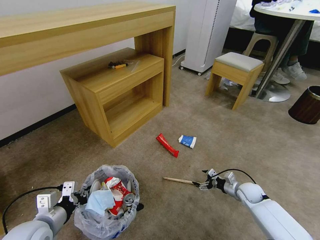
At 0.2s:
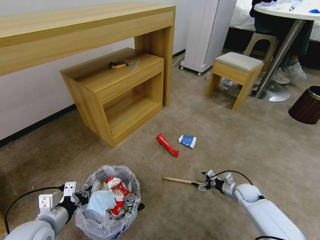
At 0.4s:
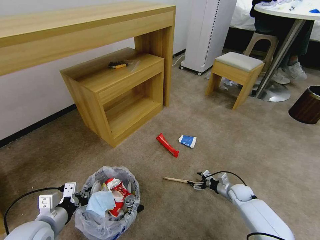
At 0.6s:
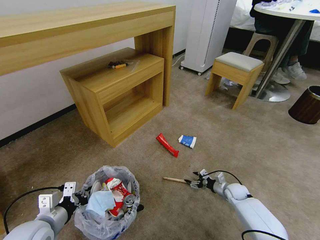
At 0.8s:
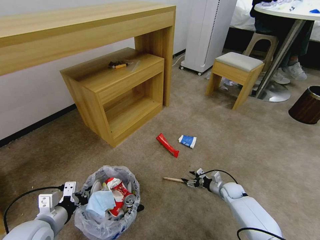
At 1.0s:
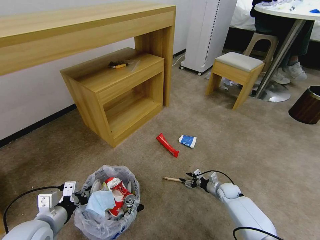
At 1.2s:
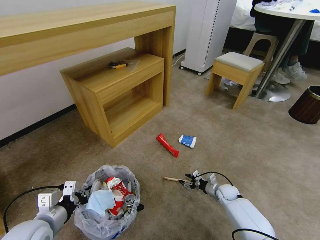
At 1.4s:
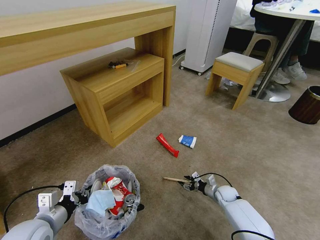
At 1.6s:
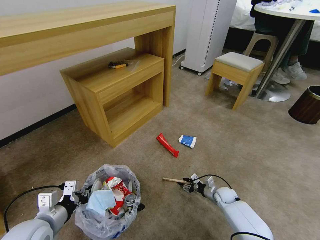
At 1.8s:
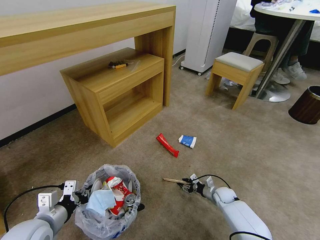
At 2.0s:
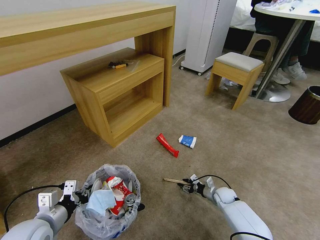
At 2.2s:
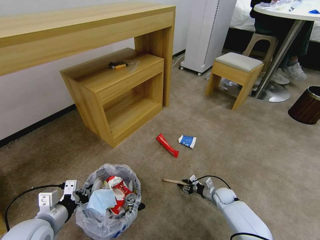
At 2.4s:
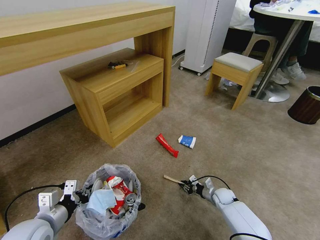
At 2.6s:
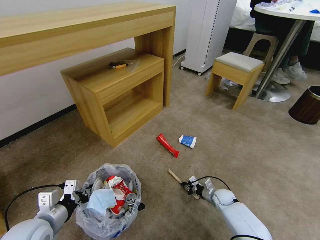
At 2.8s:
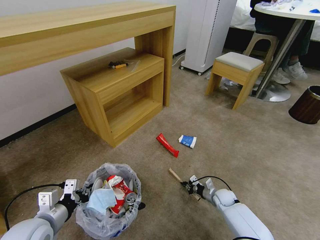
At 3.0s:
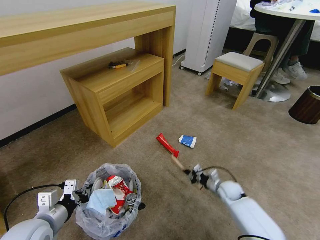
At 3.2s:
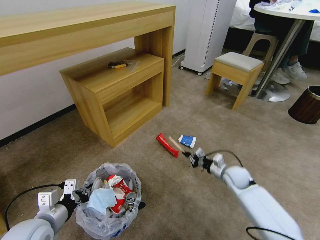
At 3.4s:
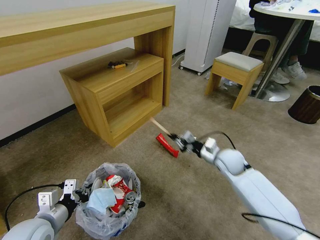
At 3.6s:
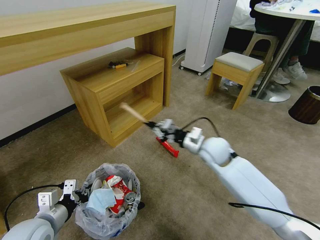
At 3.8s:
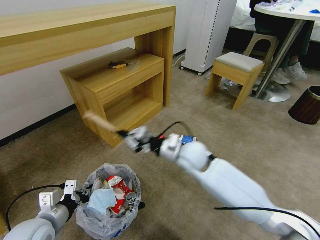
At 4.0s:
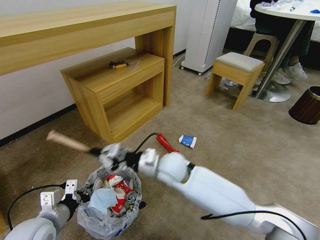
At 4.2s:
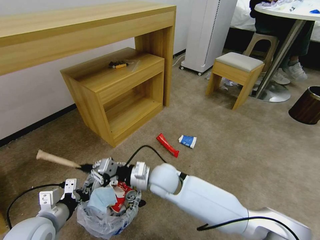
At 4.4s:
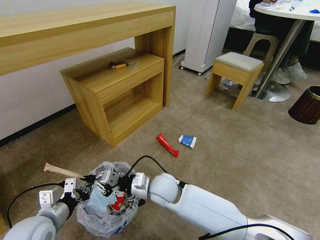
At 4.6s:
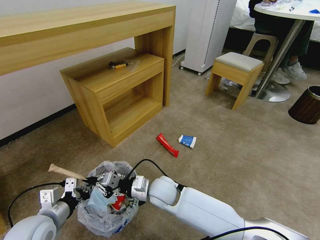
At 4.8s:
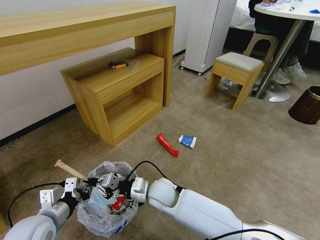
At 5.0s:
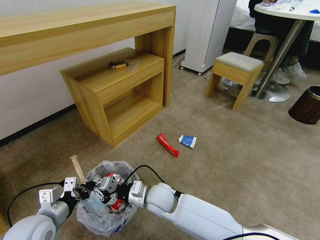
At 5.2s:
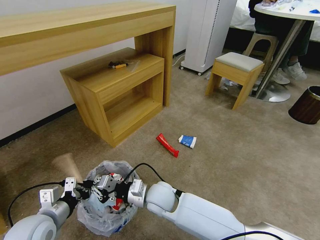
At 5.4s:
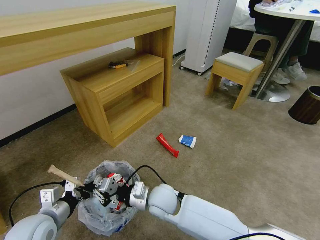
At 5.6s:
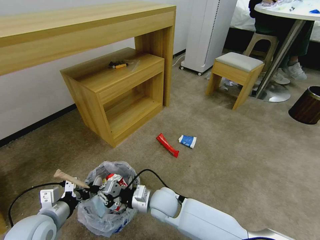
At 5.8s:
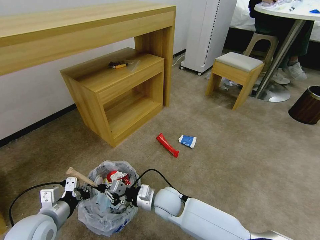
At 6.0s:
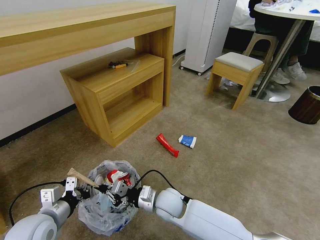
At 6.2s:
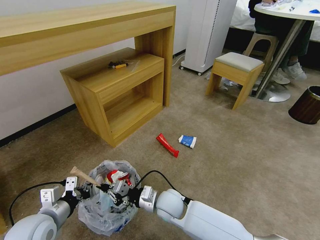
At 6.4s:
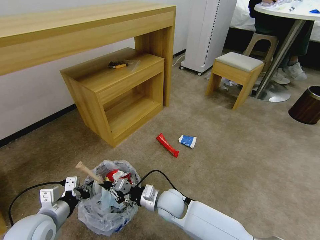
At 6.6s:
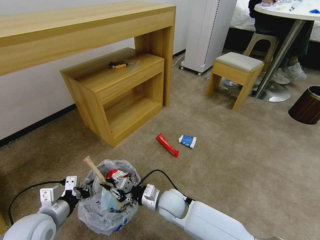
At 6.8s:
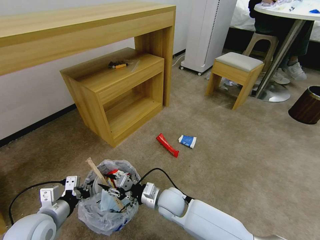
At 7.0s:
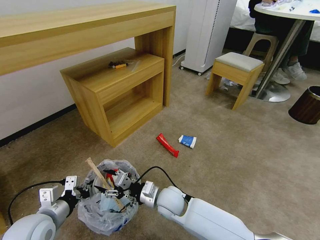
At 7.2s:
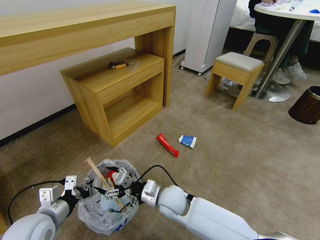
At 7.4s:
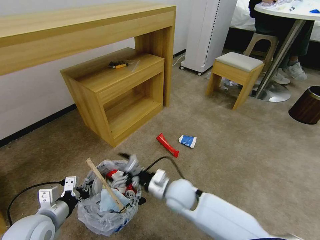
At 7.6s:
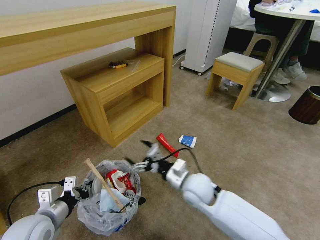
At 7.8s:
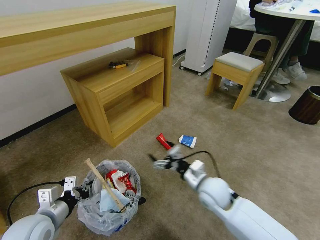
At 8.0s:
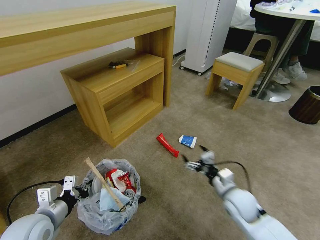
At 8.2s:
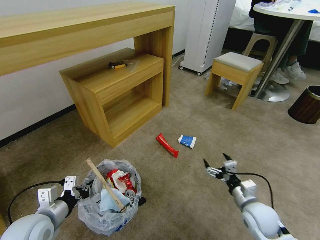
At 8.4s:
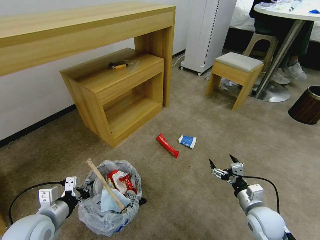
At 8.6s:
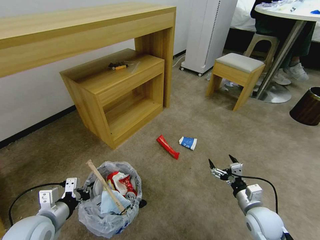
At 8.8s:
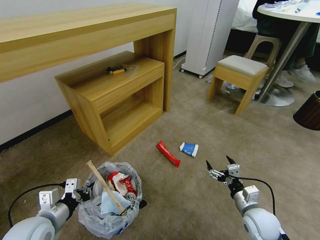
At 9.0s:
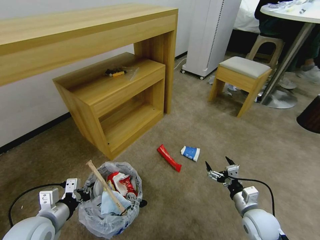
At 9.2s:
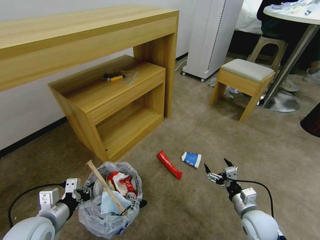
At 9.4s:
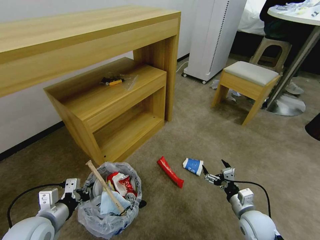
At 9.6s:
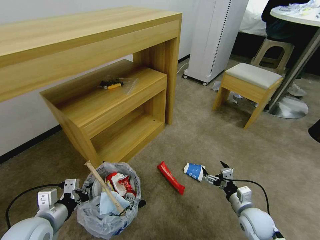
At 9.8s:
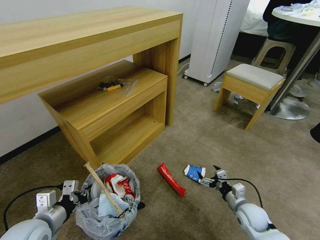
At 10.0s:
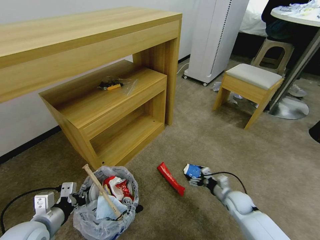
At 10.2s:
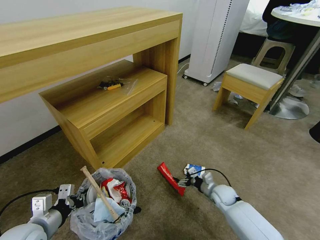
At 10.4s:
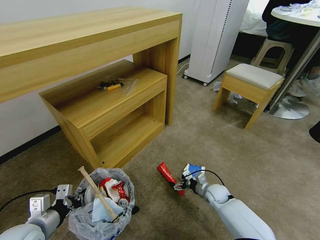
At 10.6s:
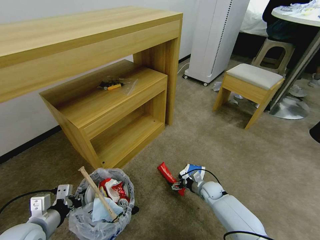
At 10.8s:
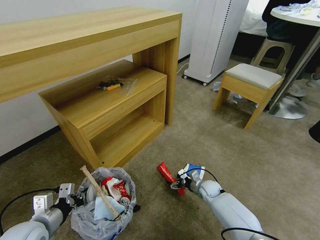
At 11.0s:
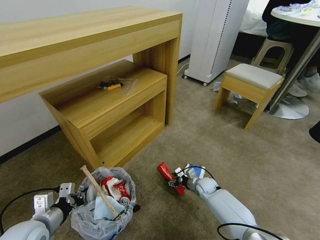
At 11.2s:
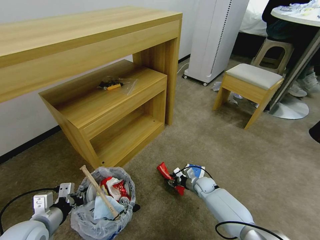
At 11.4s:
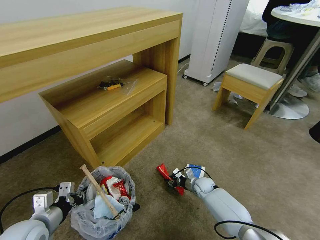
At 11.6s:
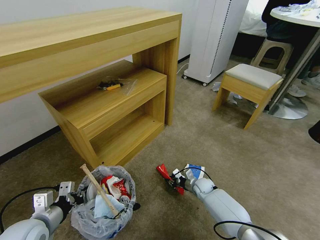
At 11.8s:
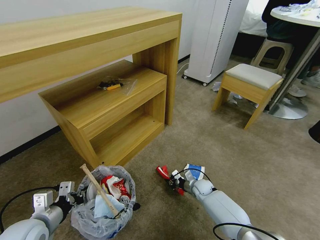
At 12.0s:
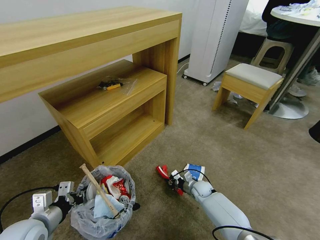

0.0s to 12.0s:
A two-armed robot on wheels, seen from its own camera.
Task of the whole recording: Pick up the trash bin and place the garbage on the floor into it.
0.0s to 1.6s: The right gripper heads downward and to the left, covering approximately 10 cm, and closes up.
1.6s to 3.0s: The right gripper moves upward, roughly 5 cm, and closes.
3.0s to 4.4s: The right gripper shifts about 35 cm to the left and upward.
4.4s to 6.0s: The right gripper goes some 5 cm downward.
6.0s to 7.6s: The right gripper shifts some 10 cm to the right and upward, and opens its fingers.
7.6s to 9.0s: The right gripper moves to the right, backward and downward, roughly 25 cm.
9.0s to 10.4s: The right gripper moves forward, downward and to the left, approximately 20 cm.
10.4s to 12.0s: The right gripper shifts about 5 cm to the left, and closes up.

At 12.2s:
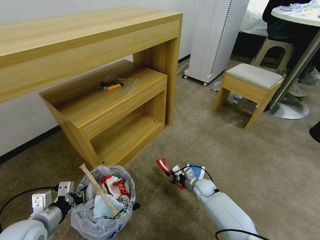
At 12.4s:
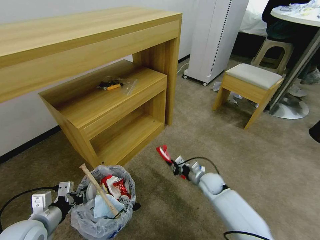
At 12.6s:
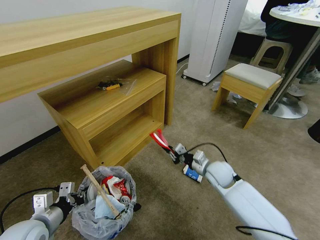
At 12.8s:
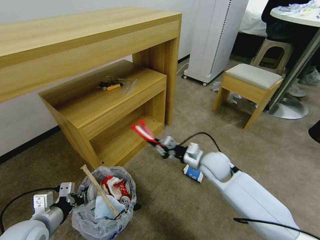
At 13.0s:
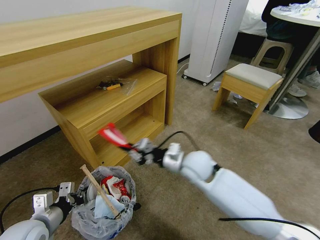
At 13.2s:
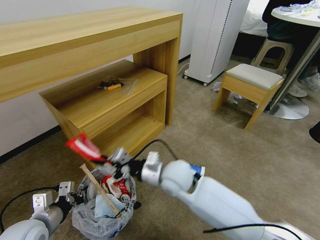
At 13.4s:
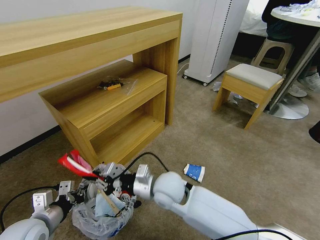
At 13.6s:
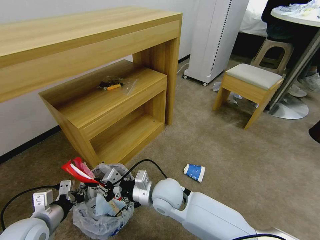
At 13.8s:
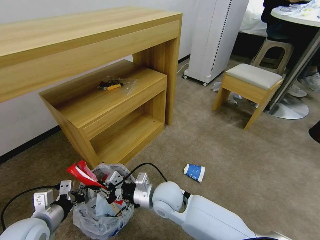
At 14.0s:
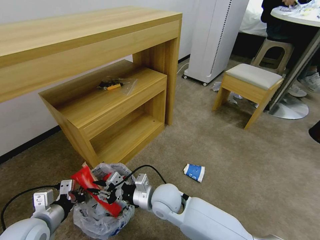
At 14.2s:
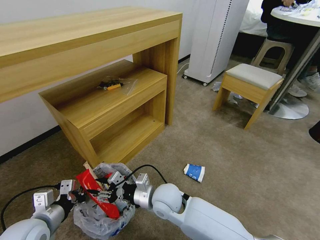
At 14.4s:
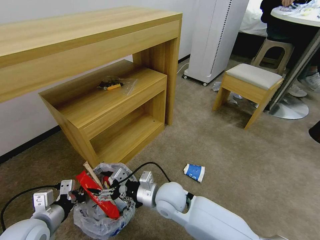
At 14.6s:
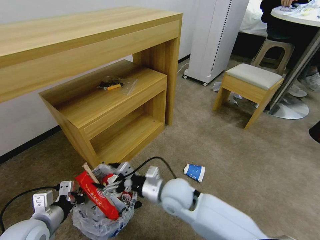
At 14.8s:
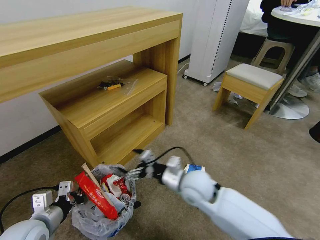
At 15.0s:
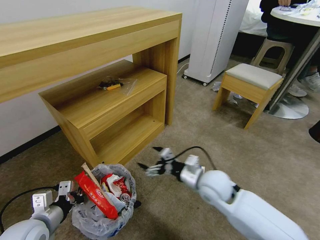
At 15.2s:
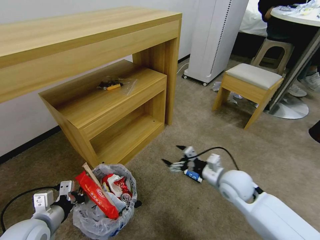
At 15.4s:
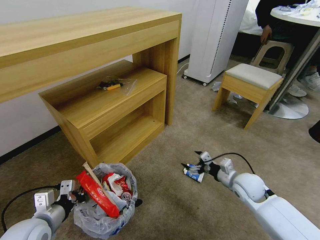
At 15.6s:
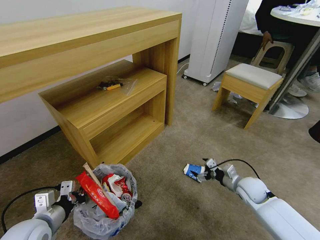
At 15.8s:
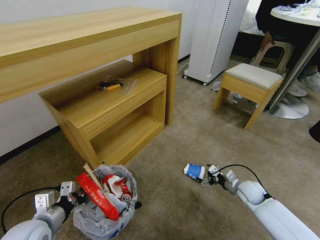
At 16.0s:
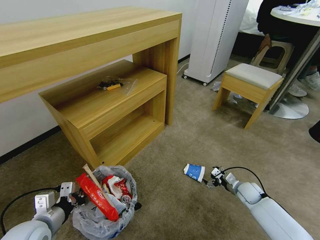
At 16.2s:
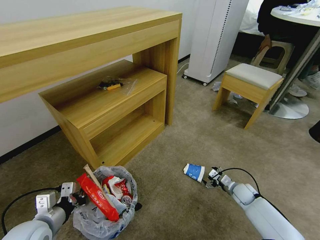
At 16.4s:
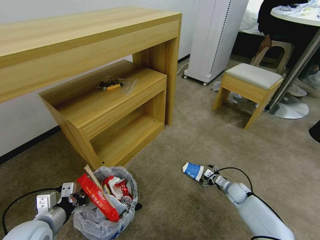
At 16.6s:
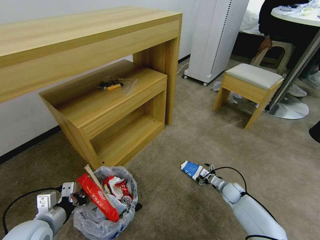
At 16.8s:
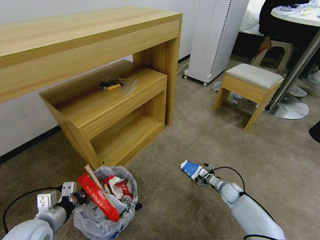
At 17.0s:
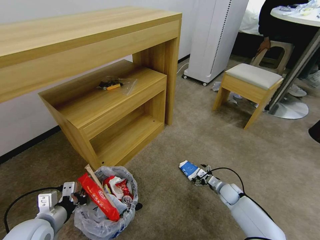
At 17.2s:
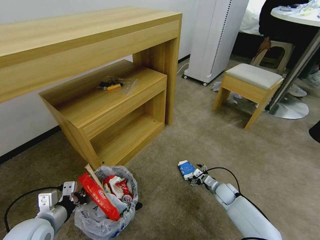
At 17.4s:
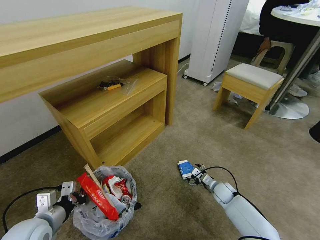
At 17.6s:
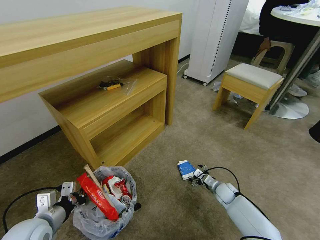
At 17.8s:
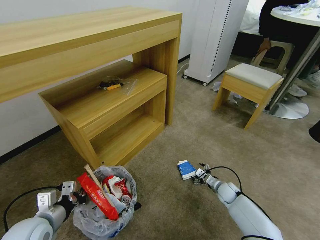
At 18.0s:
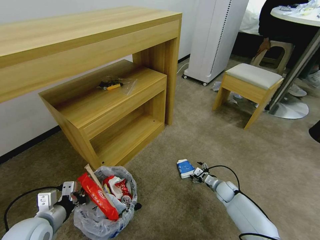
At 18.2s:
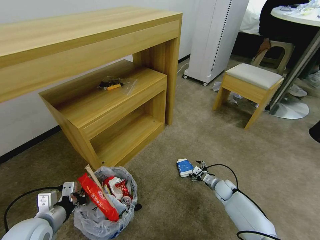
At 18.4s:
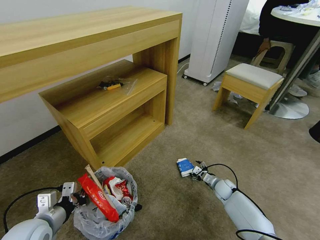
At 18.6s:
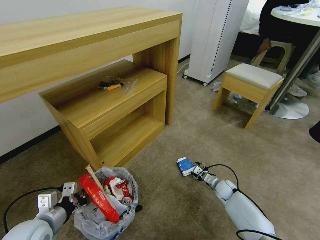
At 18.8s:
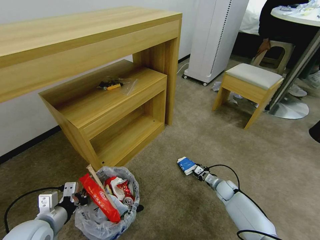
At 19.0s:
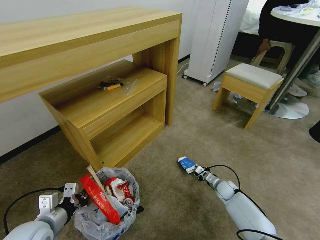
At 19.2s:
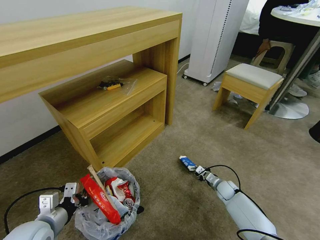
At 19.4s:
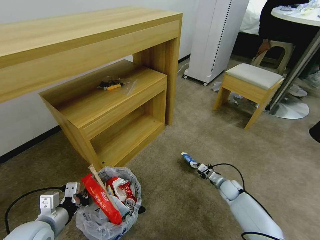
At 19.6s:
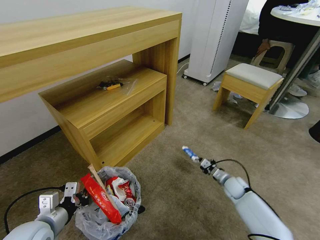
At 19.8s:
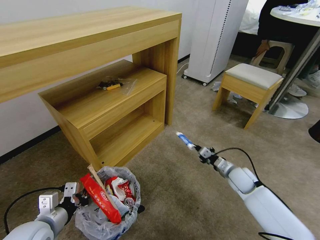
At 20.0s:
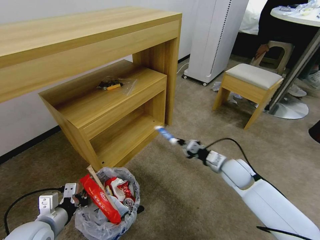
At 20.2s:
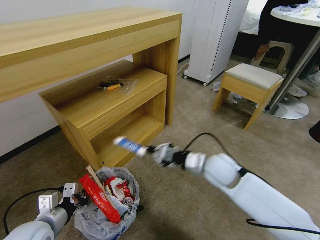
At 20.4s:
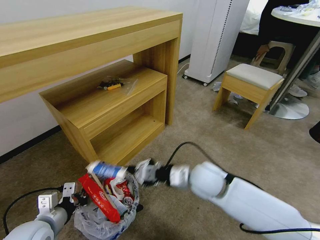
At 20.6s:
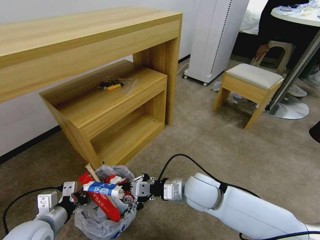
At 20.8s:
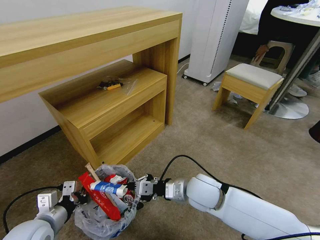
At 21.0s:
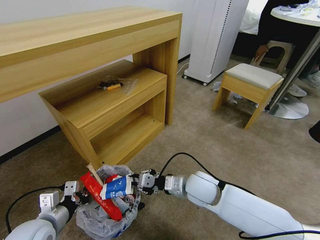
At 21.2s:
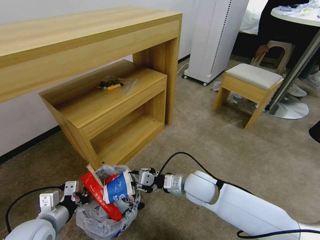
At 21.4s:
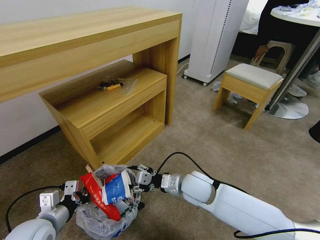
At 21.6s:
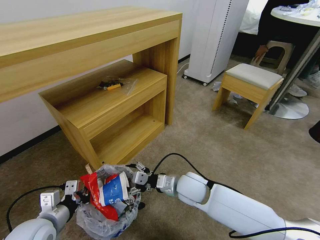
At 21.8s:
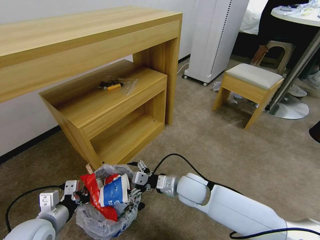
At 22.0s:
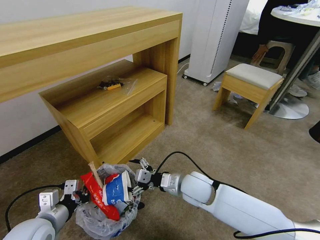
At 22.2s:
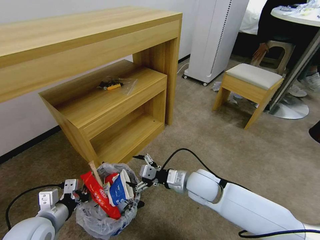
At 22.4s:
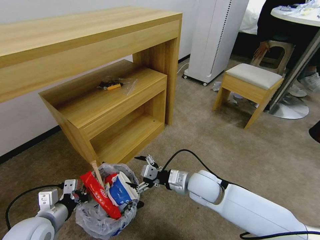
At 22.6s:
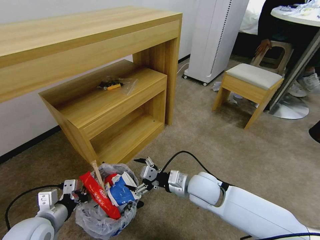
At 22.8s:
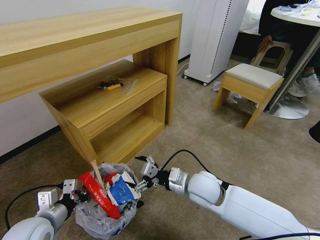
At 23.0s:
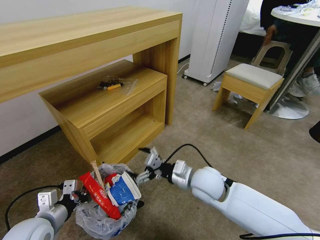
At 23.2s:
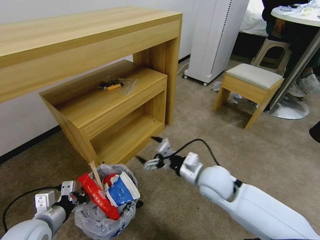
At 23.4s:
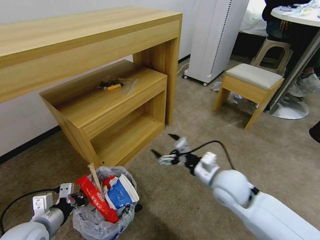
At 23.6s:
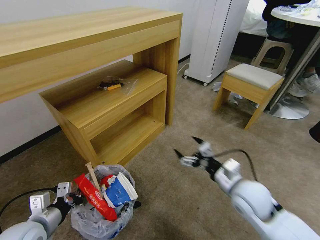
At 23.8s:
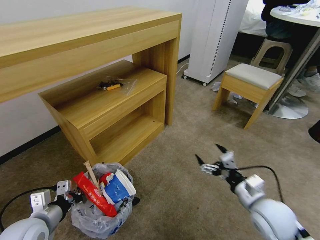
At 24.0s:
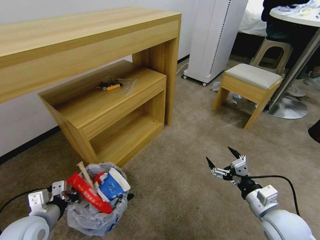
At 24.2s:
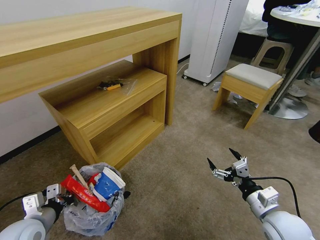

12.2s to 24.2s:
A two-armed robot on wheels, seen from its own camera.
Task of the whole recording: Pick up the trash bin and place the garbage on the floor into it.
12.2s to 13.8s: The right gripper moves upward, to the left and backward, roughly 30 cm.
13.8s to 15.2s: The right gripper shifts roughly 20 cm to the right, and opens its fingers.
15.2s to 16.6s: The right gripper travels downward and to the right by approximately 25 cm.
16.6s to 18.2s: The grippers stay close to where they were, moving slightly.
18.2s to 19.8s: The right gripper goes some 15 cm upward, and closes up.
19.8s to 21.2s: The right gripper shifts about 20 cm to the left and upward, and opens its fingers.
21.2s to 22.6s: The right gripper opens.
22.6s to 24.2s: The right gripper travels to the right and backward by approximately 20 cm.
